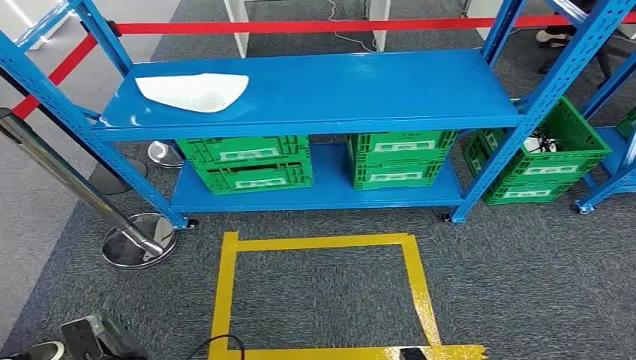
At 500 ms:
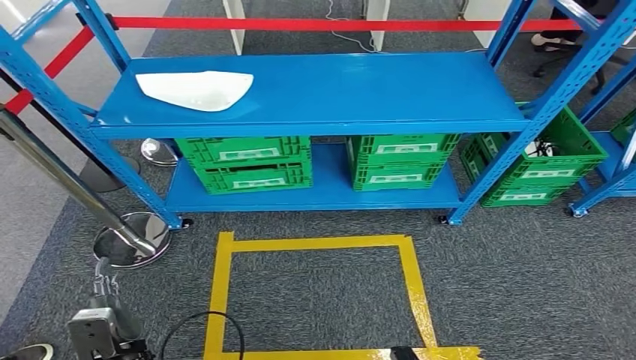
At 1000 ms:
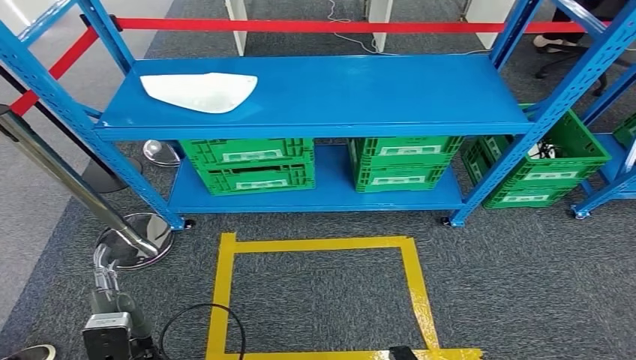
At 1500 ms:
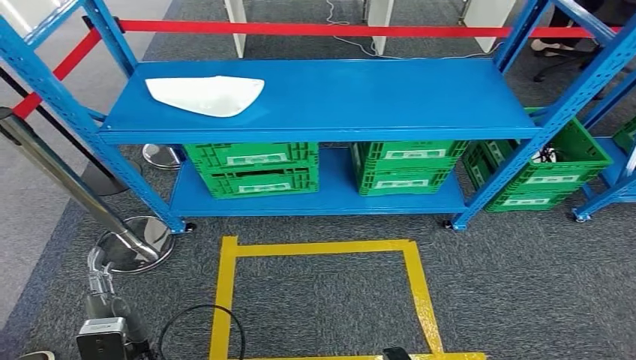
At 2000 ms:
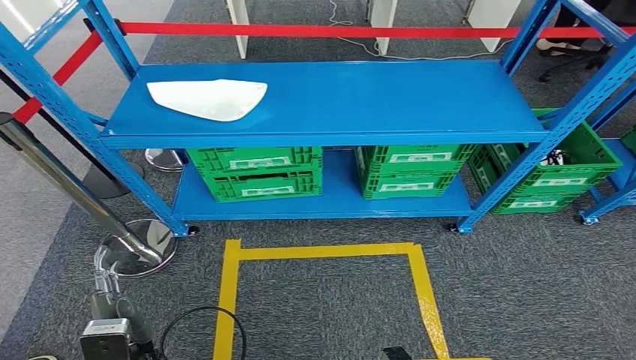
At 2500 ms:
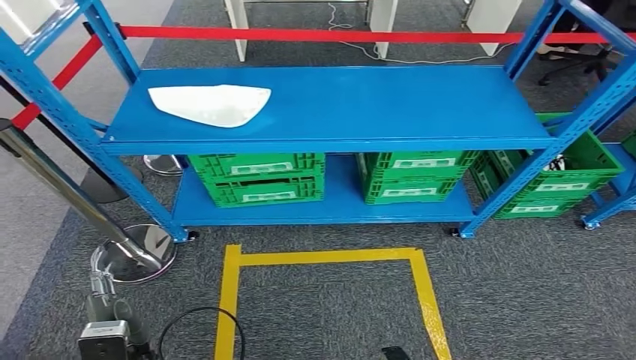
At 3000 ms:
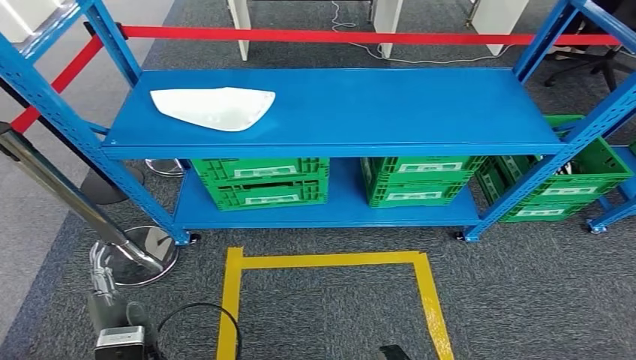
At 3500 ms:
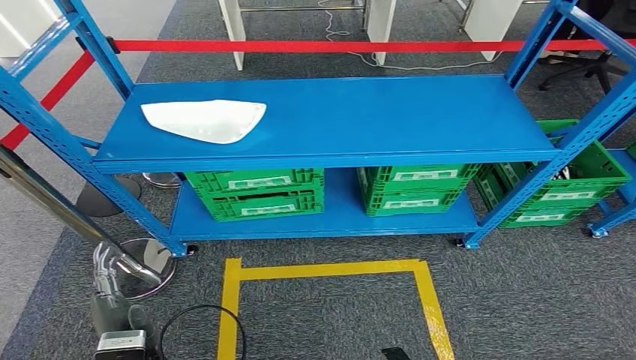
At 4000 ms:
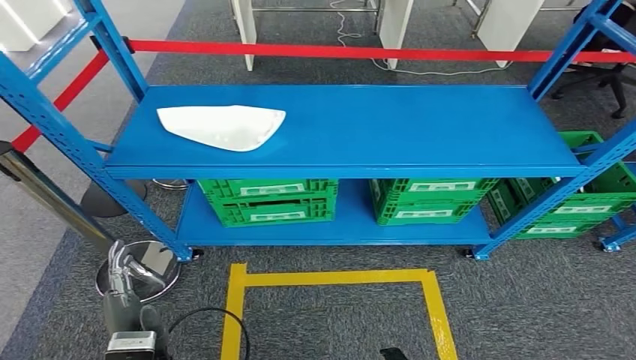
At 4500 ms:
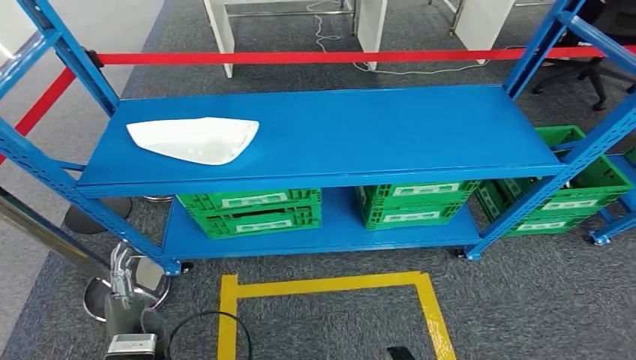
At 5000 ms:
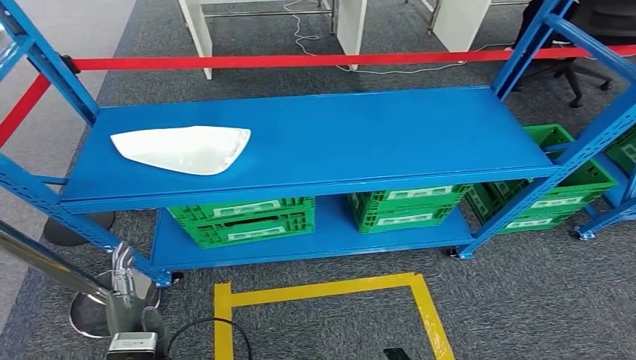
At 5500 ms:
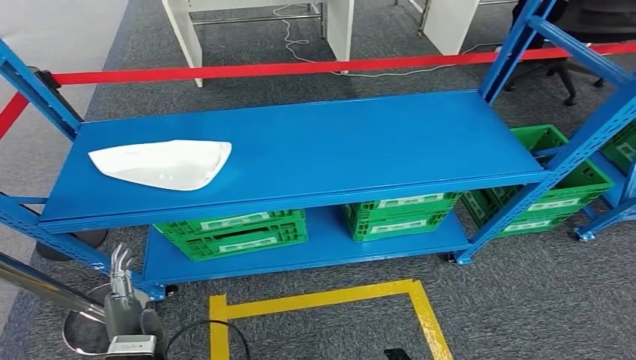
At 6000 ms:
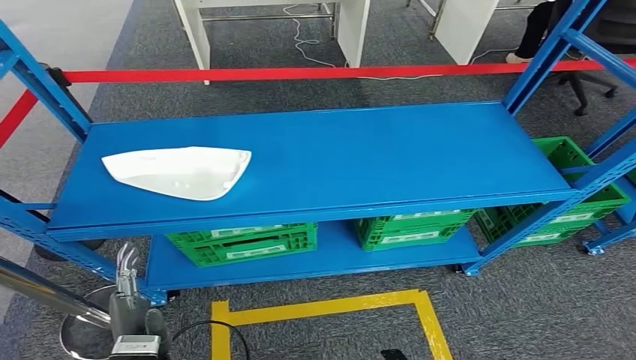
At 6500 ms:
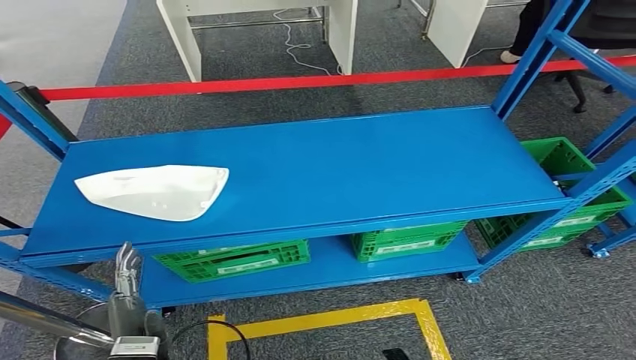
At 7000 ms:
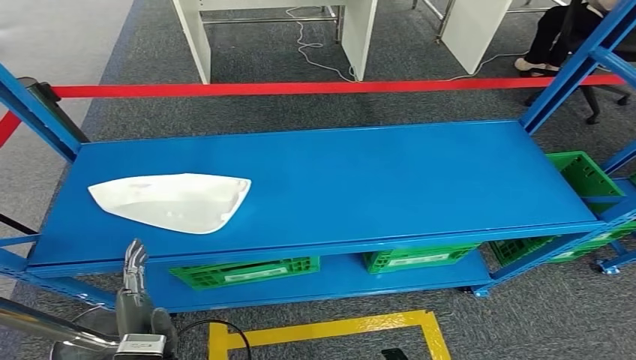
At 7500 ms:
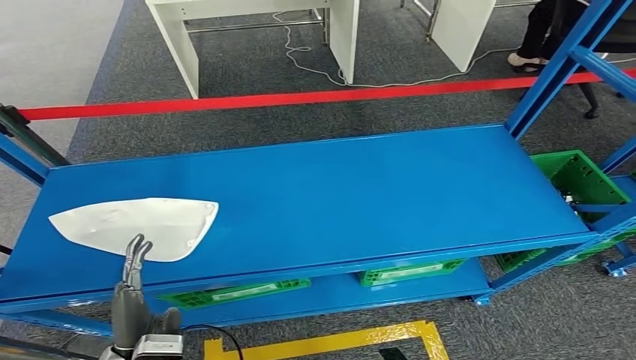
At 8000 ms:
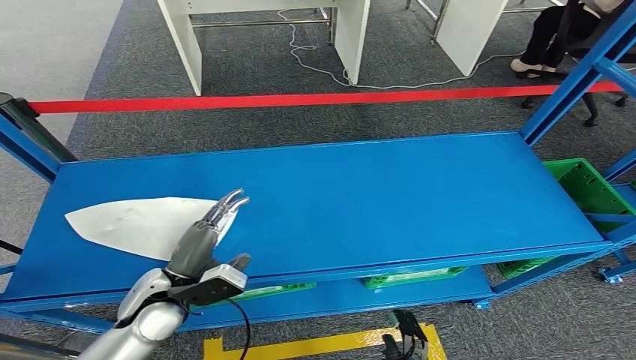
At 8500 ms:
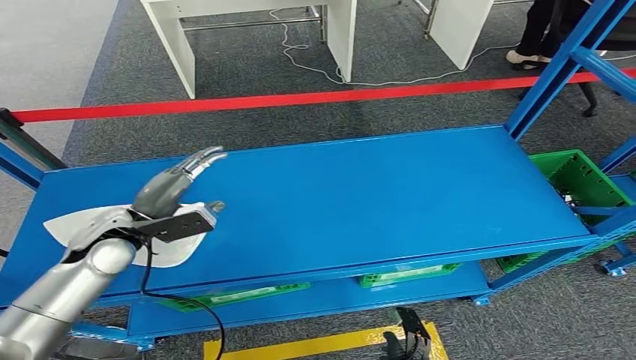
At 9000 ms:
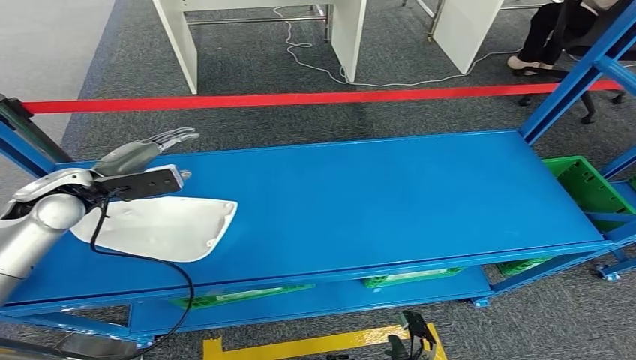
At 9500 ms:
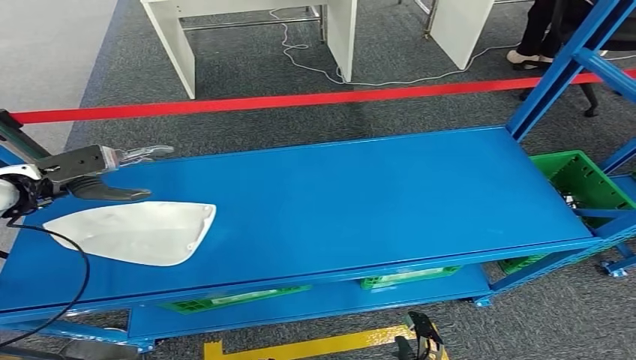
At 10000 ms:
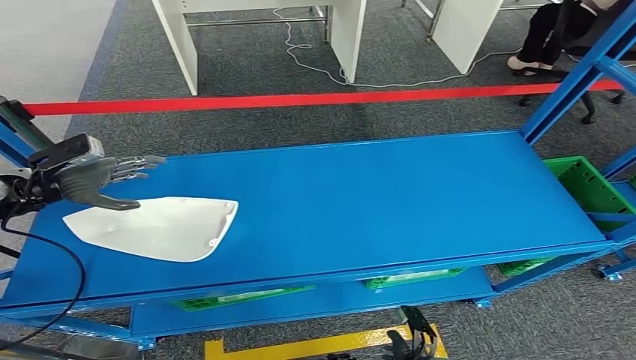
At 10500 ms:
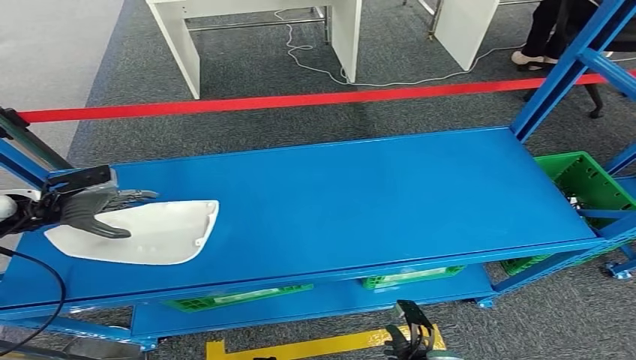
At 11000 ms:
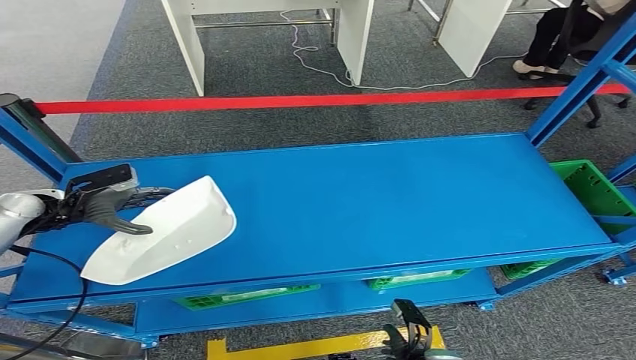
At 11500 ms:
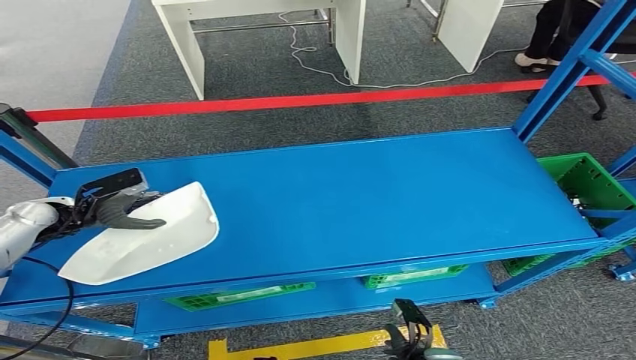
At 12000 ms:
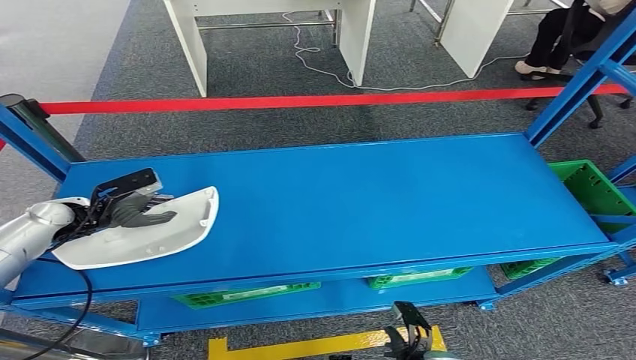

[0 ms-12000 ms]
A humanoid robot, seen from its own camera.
8000 ms to 10000 ms: The left hand travels to the left, forward and upward by some 30 cm.

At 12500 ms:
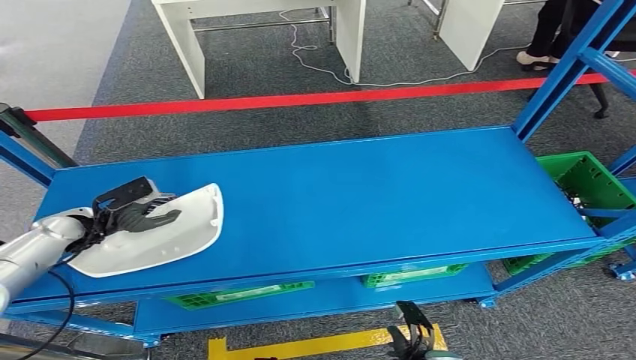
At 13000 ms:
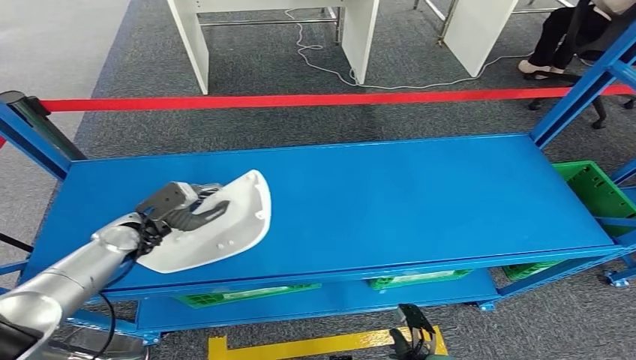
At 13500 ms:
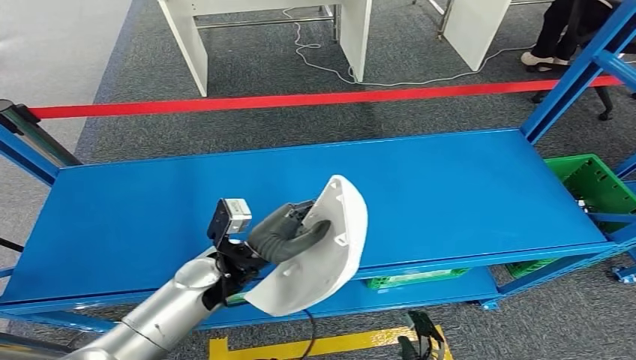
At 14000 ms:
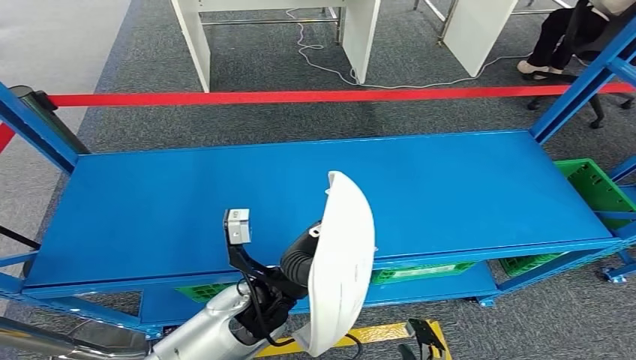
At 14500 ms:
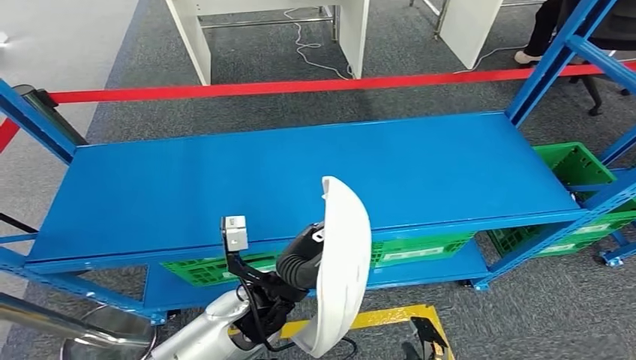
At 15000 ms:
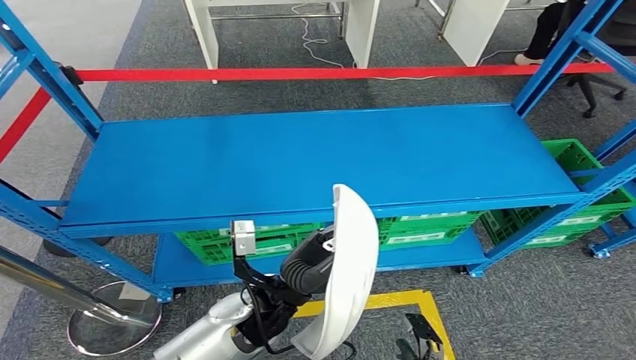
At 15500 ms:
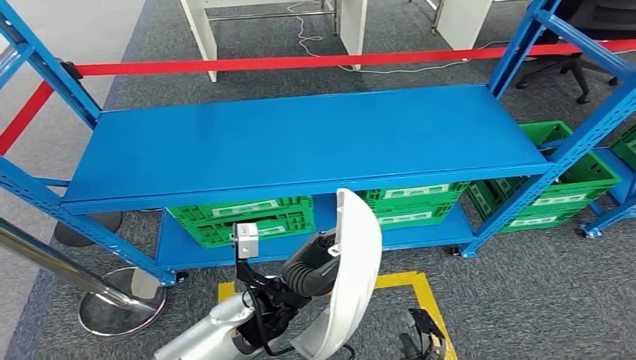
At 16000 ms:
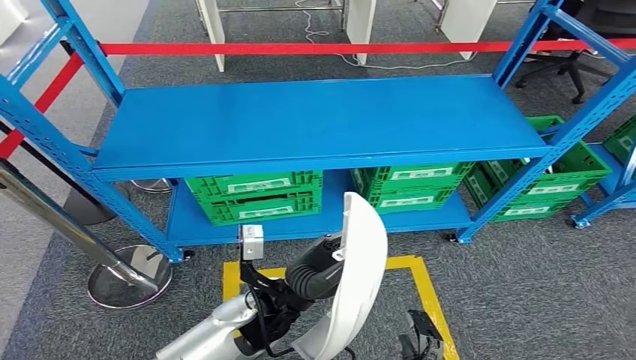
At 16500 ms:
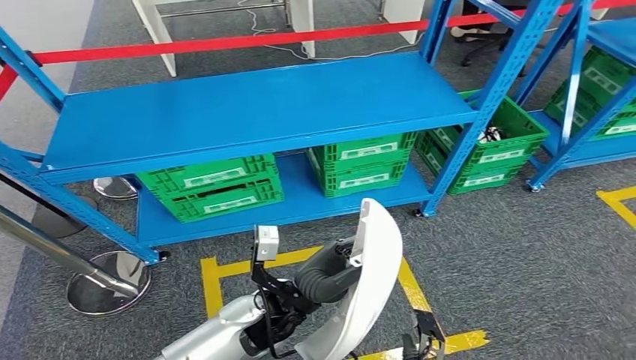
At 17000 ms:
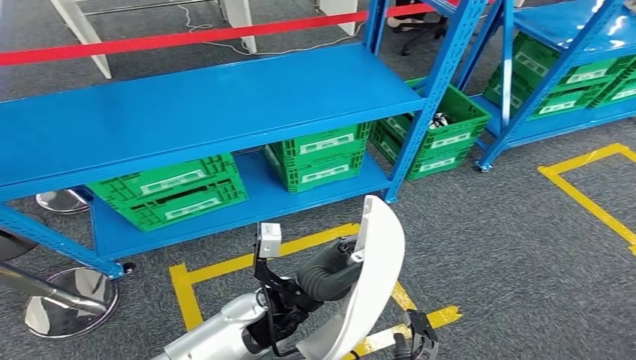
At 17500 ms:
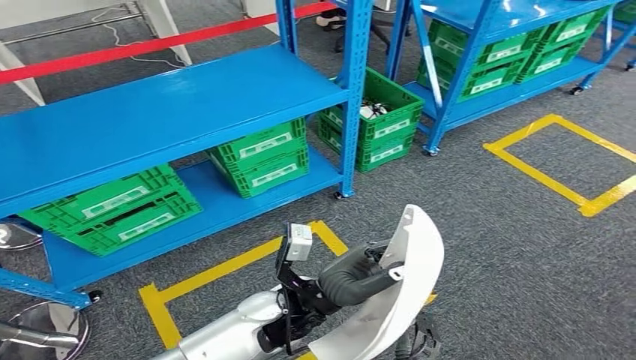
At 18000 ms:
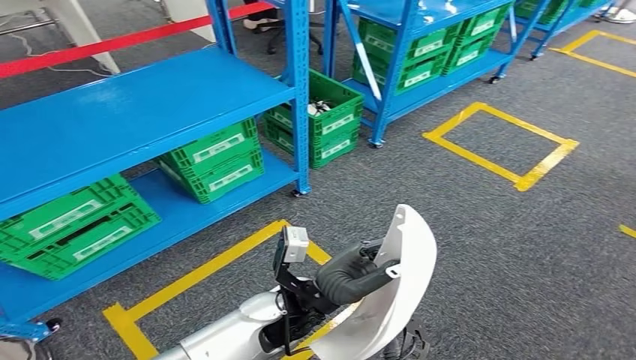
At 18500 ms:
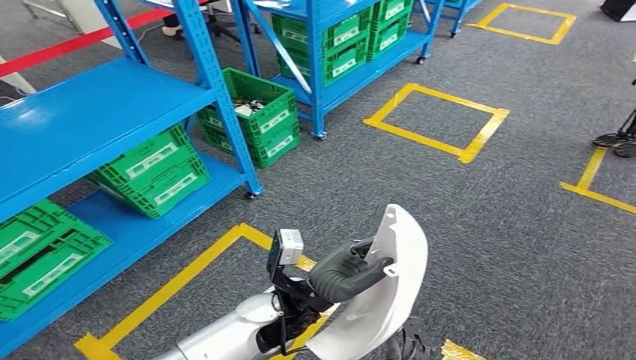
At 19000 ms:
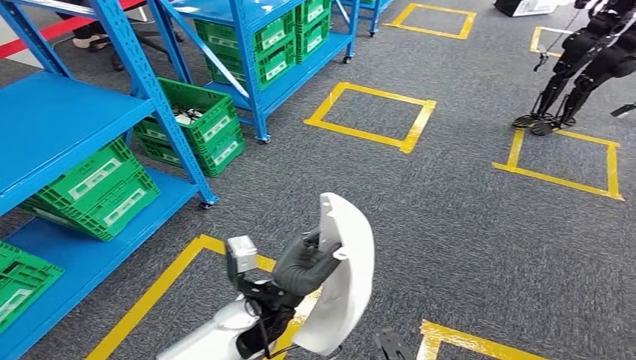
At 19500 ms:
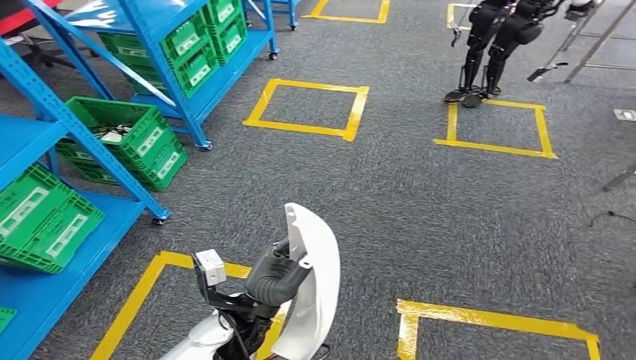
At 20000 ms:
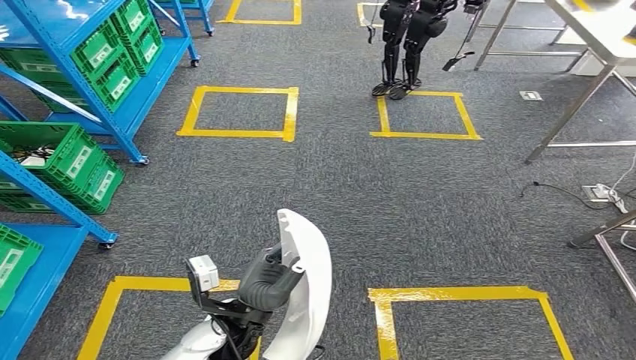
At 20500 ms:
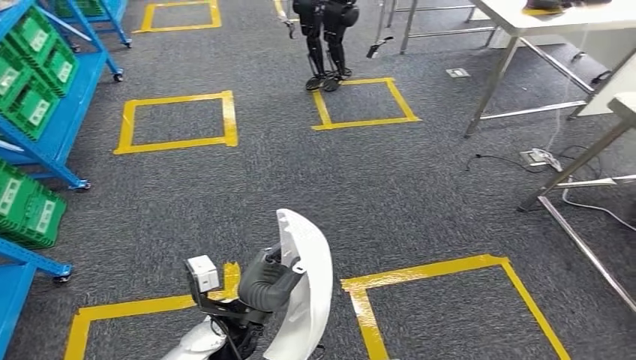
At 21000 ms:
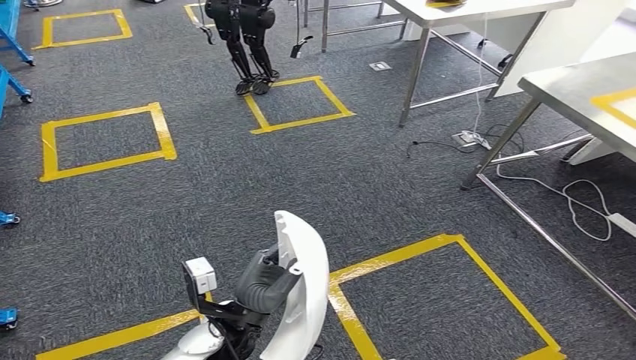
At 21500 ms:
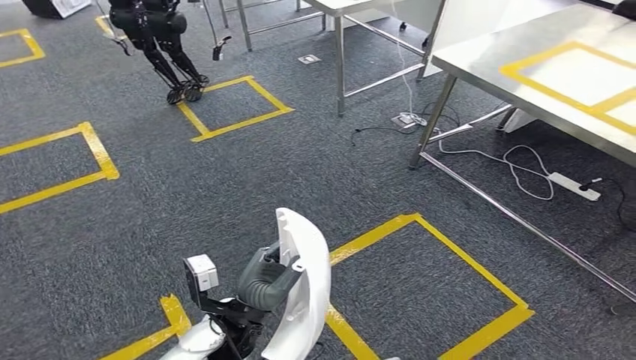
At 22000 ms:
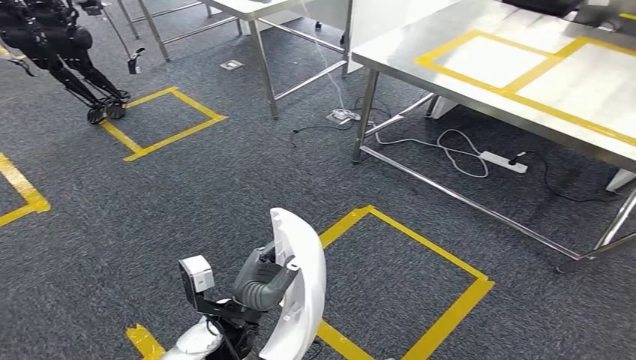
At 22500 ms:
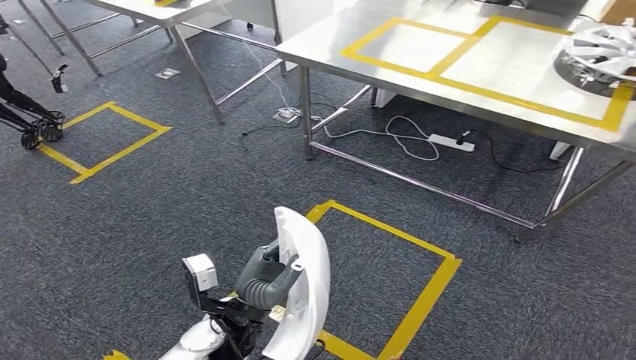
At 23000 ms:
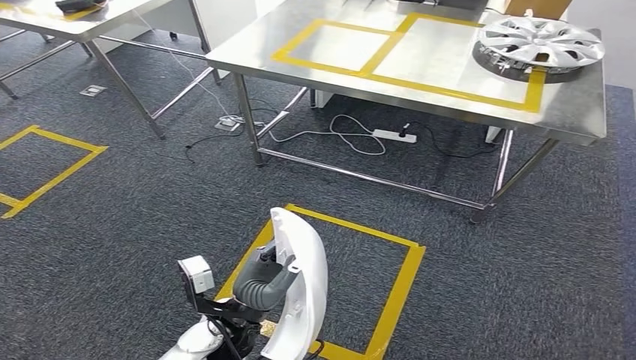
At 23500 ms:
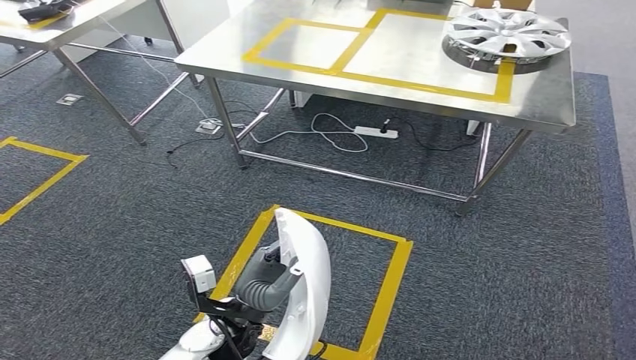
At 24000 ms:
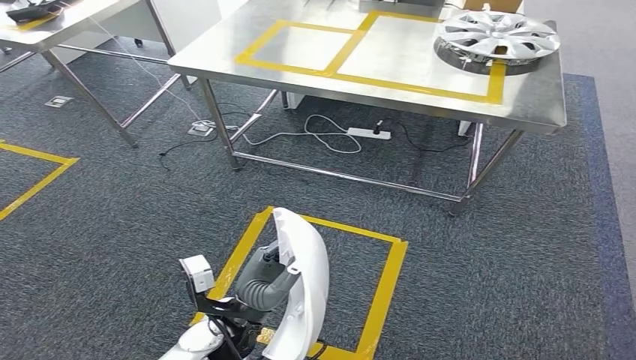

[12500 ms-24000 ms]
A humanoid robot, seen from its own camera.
Step, 12500 ms to 15000 ms: Take small components from the rack.
